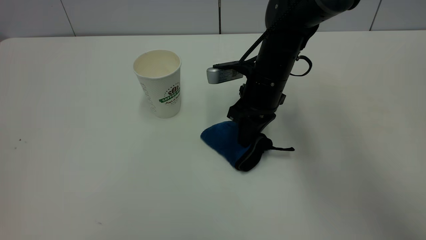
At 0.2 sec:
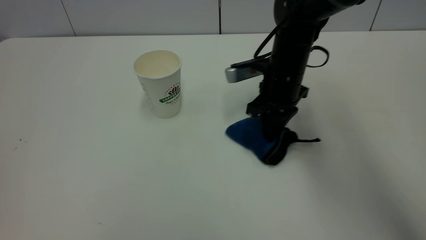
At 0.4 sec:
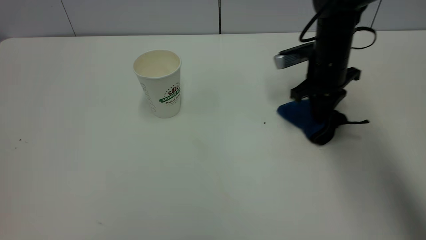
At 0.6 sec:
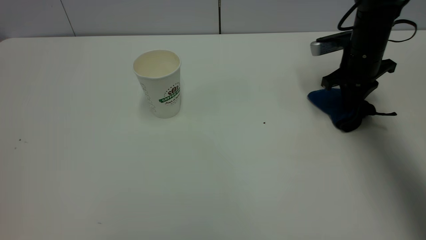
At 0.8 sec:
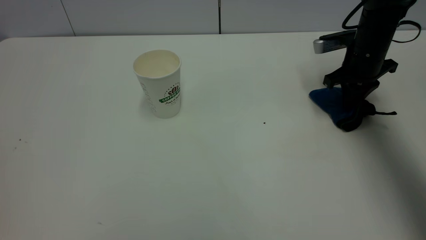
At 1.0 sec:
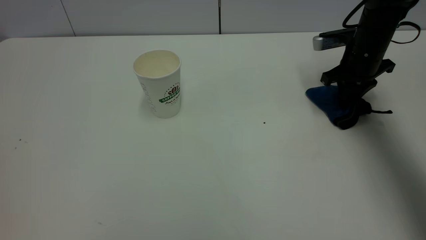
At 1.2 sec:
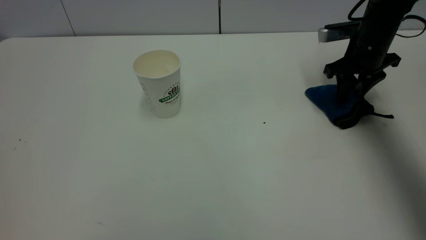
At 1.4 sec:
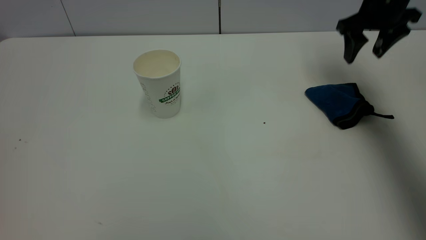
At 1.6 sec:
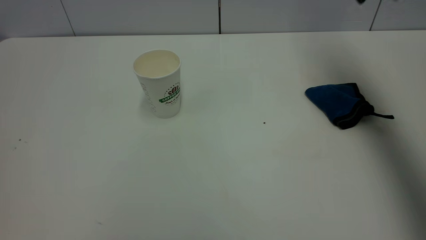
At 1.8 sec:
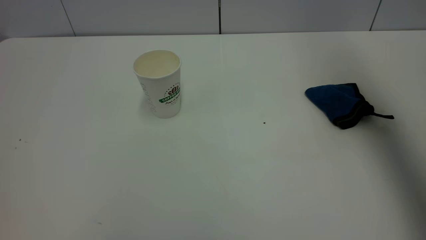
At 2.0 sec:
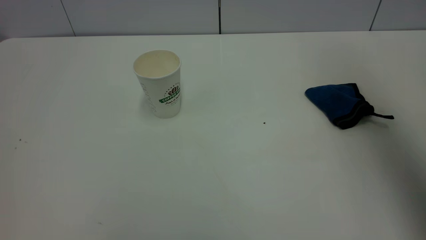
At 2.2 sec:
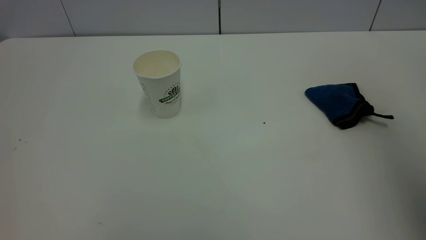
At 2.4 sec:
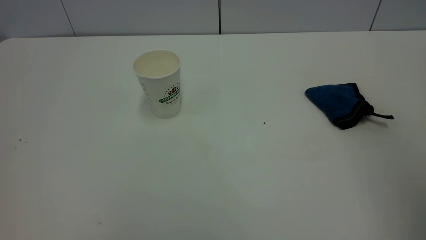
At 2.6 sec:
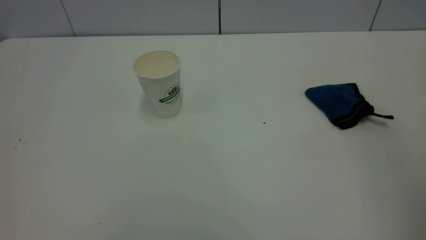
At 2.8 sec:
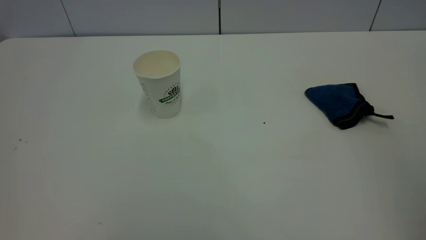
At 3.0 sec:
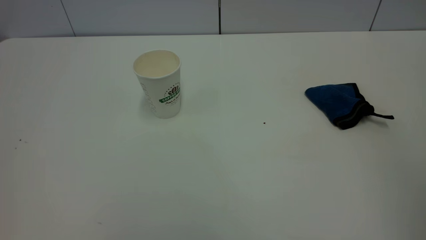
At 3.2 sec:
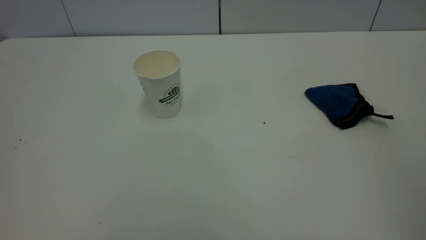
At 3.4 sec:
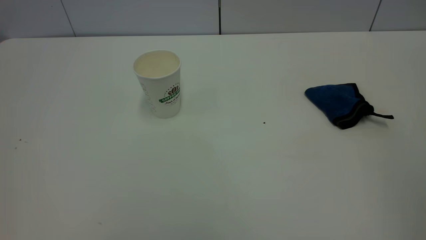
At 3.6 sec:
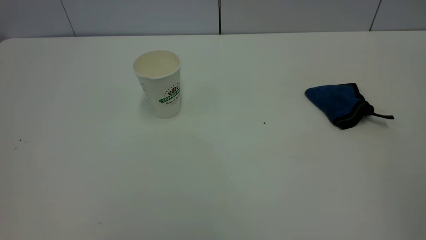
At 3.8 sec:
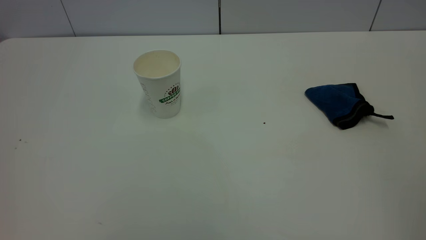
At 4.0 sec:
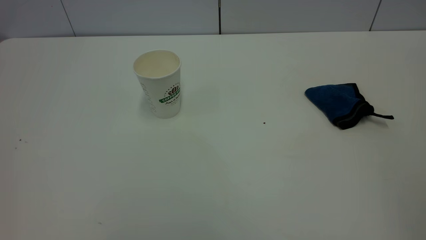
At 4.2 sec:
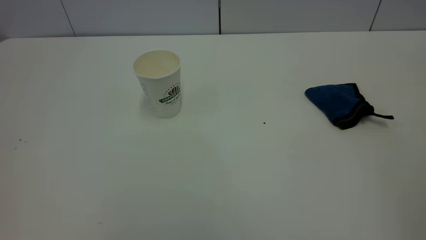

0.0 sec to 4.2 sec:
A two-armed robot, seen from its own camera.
Task of the whole recording: the left gripper pick up the fallen cup and place it upright, the right gripper grasp the blue rag and wipe the tea stain on the table, the right gripper put the blue rag back in its original position.
0.0 sec to 1.4 sec: The right gripper goes roughly 25 cm to the right and upward, and opens up.
1.4 sec to 2.8 sec: The right gripper is displaced backward by some 40 cm.

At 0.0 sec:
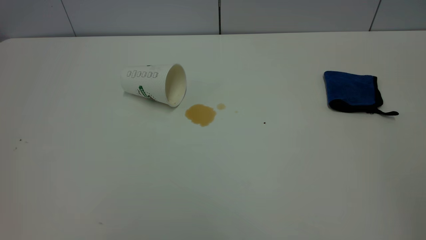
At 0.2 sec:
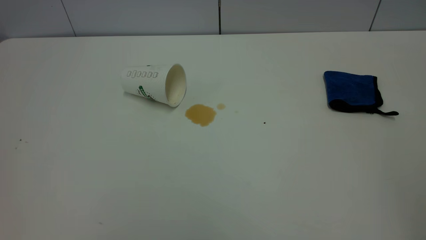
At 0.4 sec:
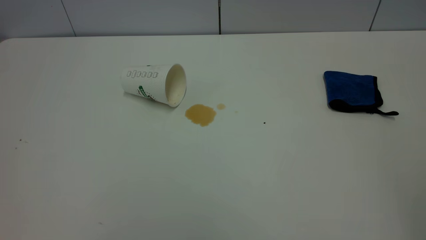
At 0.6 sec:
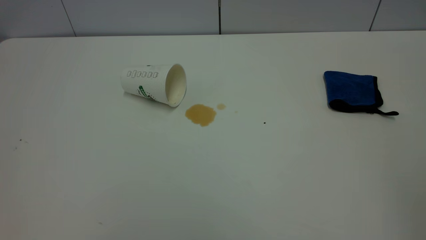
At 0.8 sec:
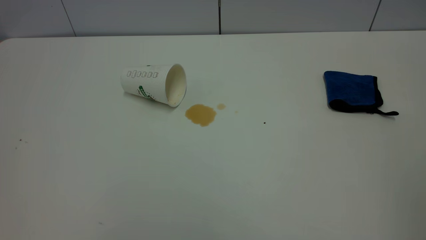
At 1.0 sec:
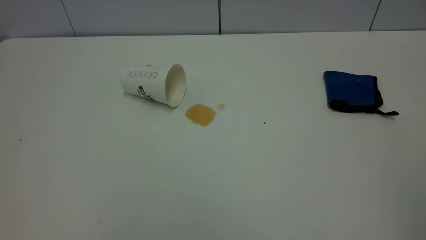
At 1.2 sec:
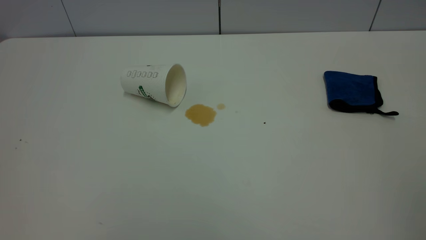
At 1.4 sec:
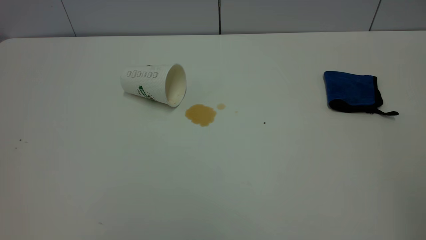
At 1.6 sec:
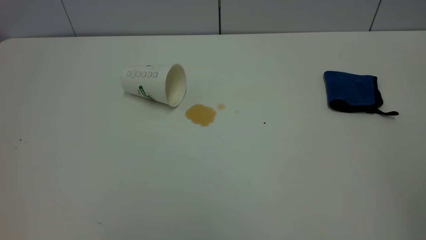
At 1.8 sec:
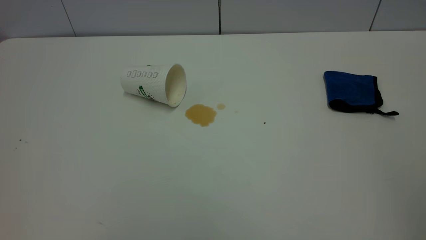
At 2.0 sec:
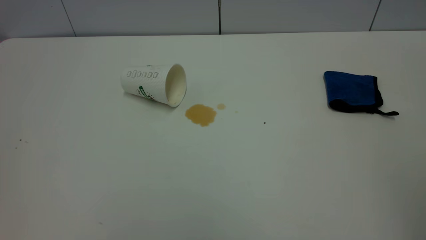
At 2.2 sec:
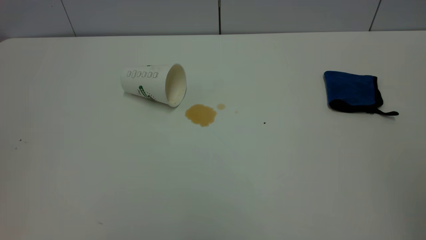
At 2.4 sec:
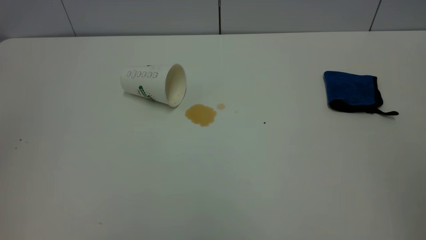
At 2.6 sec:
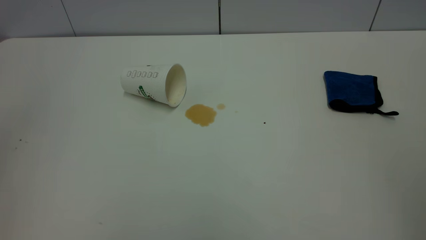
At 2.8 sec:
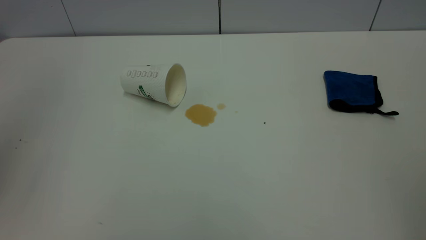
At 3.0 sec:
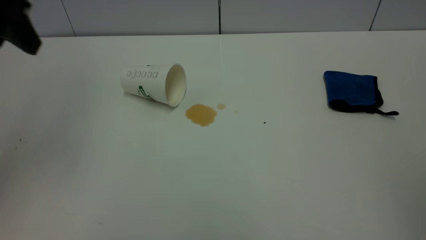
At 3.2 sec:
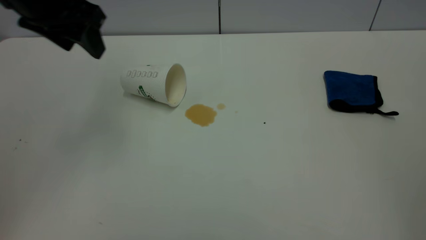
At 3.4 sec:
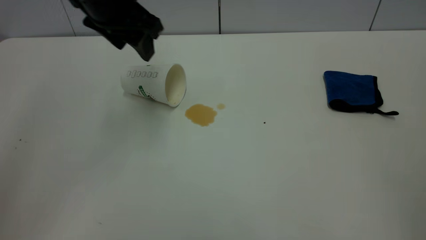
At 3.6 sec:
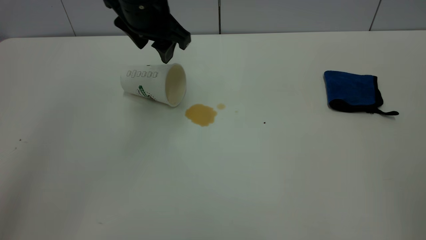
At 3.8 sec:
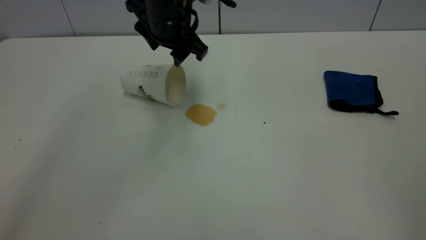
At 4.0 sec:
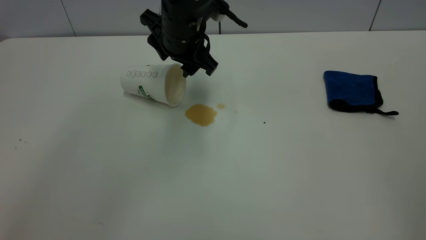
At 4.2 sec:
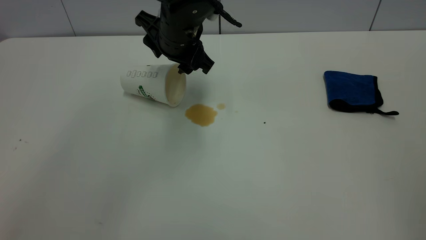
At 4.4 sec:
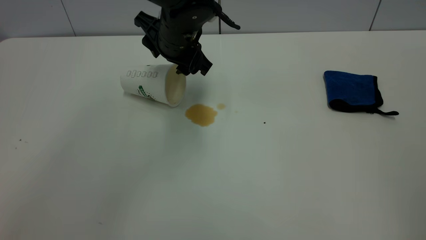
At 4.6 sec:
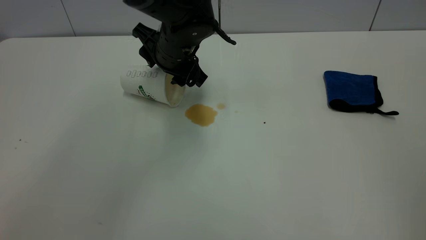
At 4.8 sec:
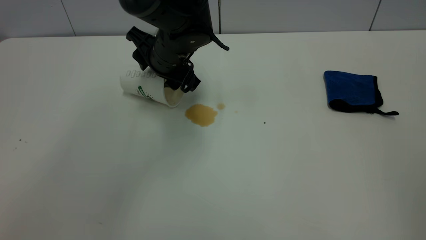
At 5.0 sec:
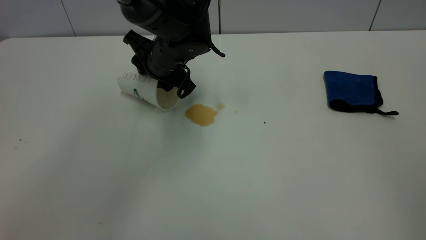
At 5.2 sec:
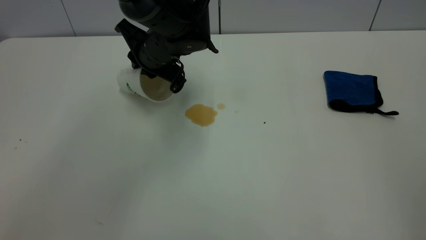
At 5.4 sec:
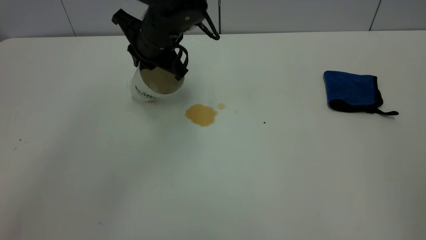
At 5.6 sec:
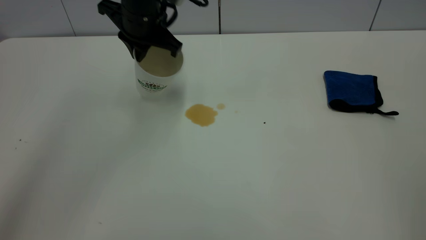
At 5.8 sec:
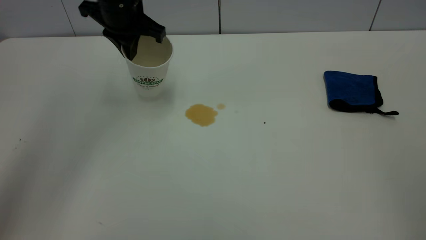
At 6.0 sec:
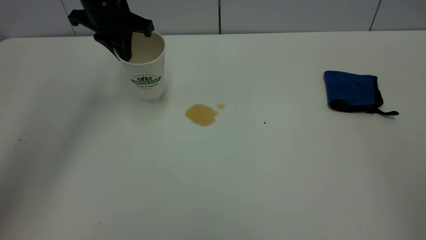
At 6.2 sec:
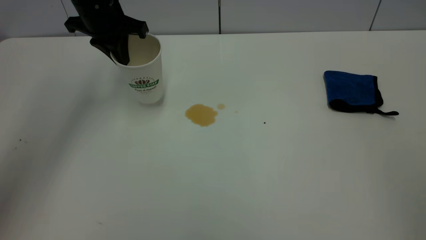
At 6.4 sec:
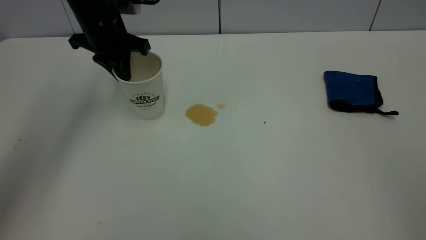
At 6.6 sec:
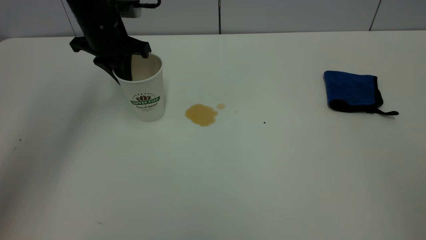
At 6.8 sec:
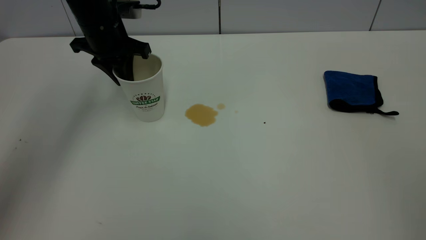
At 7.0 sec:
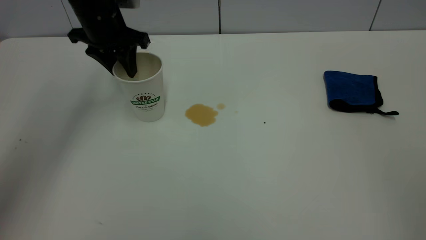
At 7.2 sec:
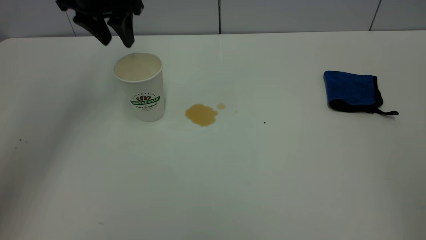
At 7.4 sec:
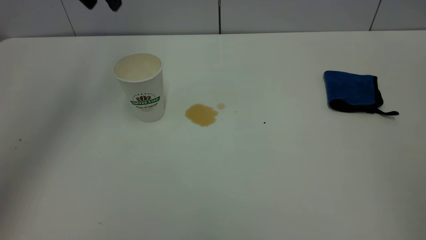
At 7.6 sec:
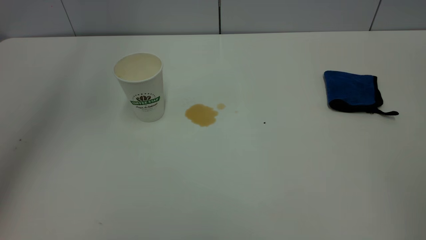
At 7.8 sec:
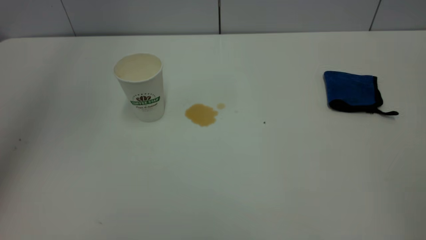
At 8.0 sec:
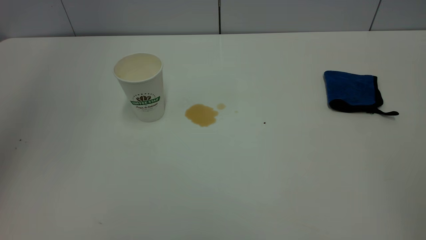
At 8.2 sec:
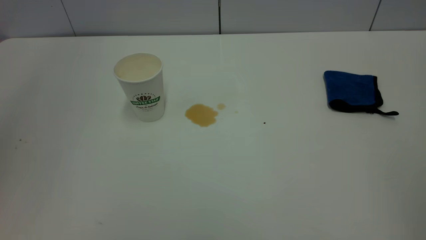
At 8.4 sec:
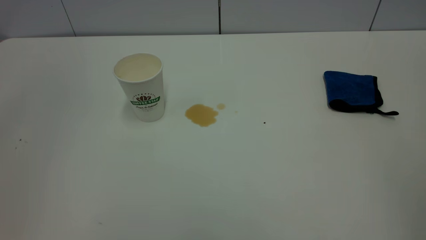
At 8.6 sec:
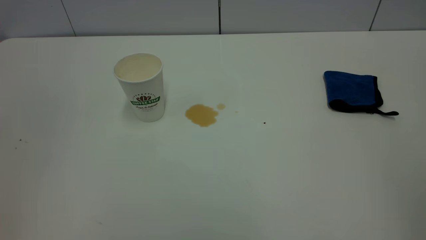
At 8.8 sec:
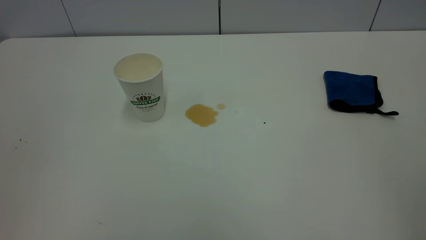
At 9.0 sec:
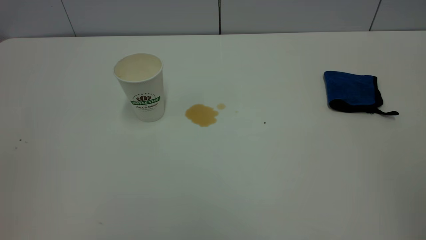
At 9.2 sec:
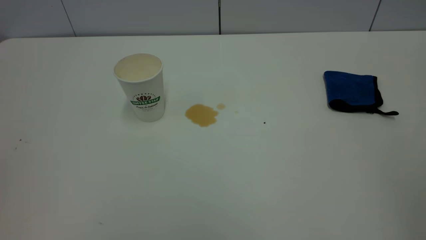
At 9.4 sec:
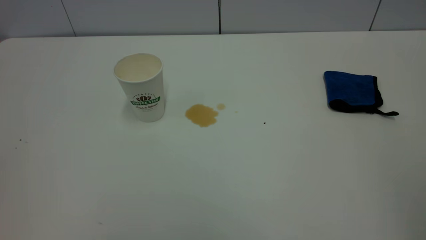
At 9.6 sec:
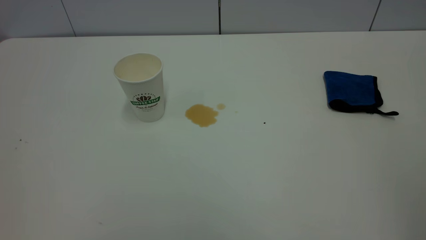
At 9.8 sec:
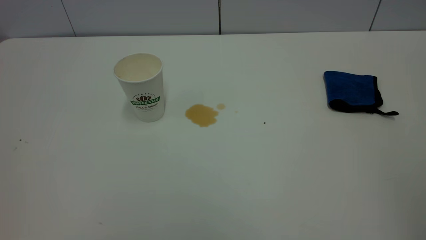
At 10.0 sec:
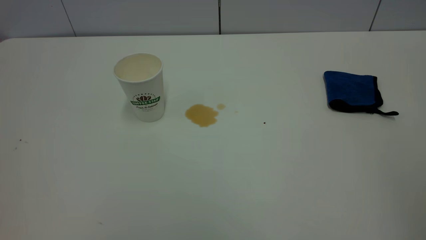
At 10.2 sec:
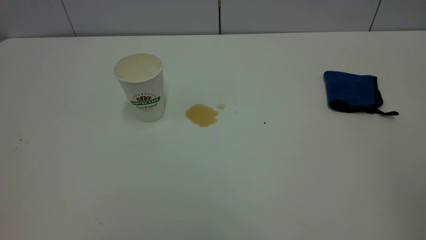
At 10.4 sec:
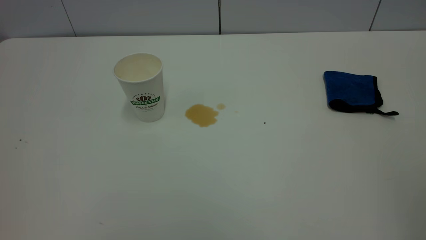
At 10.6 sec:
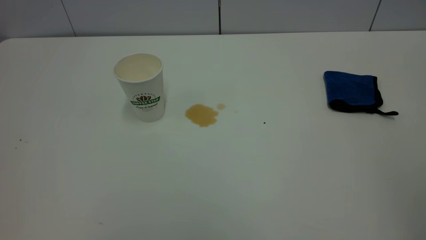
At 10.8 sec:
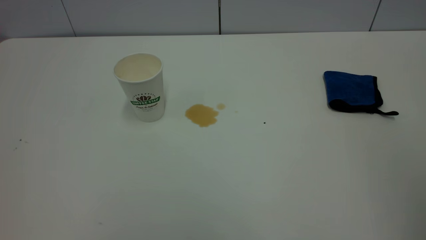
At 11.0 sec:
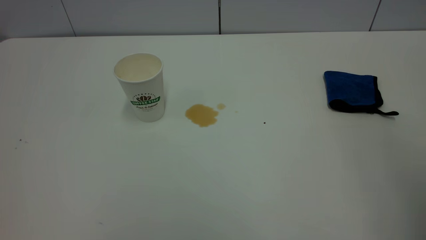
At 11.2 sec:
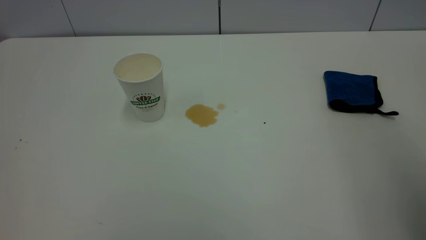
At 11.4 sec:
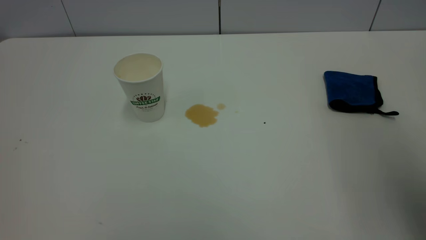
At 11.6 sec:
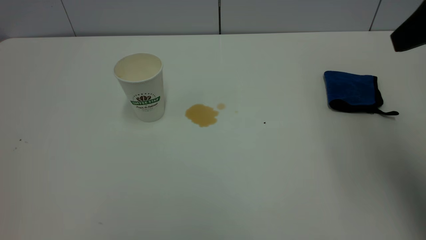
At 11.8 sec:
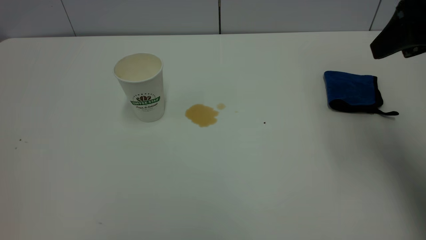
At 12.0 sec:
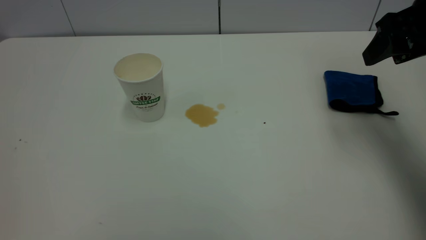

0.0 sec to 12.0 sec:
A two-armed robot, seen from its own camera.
Task of the whole recording: the left gripper pick up the fallen cup and place it upright, the right gripper grasp the blue rag and wipe the tea stain on the table, the right gripper put the blue rag back in its original position.
Step, 0.0 sec to 7.0 sec: Stand the paper cup upright.
1.6 sec to 3.0 sec: The left gripper shifts about 30 cm forward, and opens its fingers.
3.0 sec to 4.4 sec: The left gripper moves to the right, downward and forward, about 30 cm.
4.4 sec to 6.0 sec: The left gripper travels to the left and upward by about 15 cm, and closes its fingers.
6.0 sec to 7.6 sec: The left gripper heads upward, covering roughly 20 cm, and opens.
7.6 sec to 9.0 sec: The left gripper shifts some 35 cm backward.
10.4 sec to 12.0 sec: The right gripper heads forward, covering roughly 35 cm, and opens its fingers.
